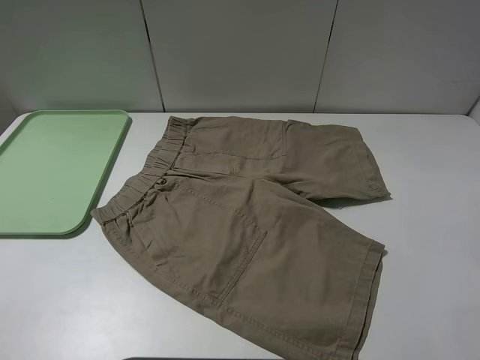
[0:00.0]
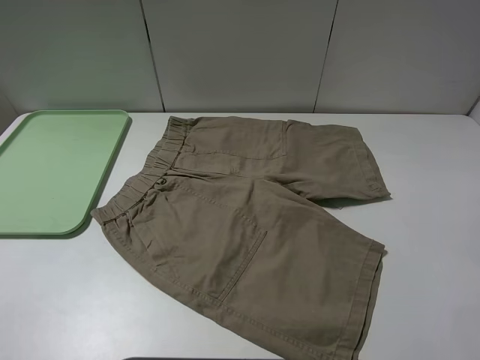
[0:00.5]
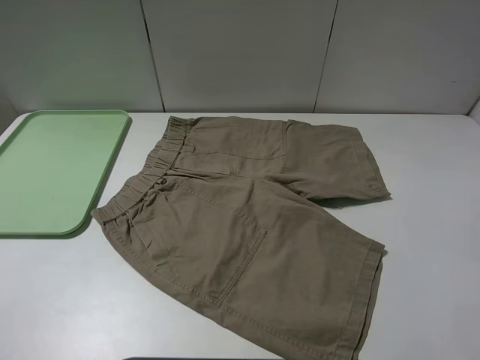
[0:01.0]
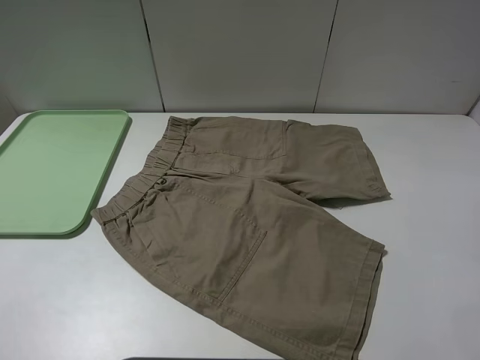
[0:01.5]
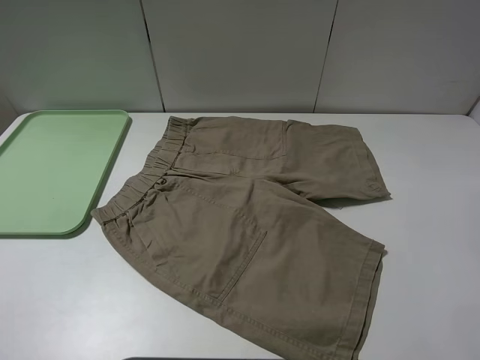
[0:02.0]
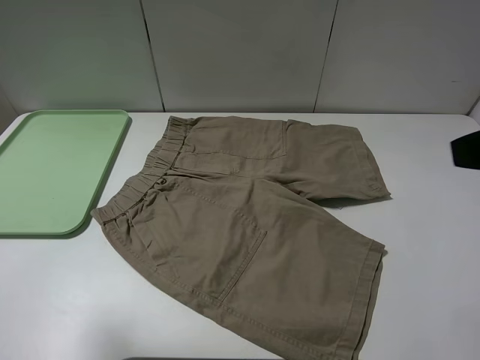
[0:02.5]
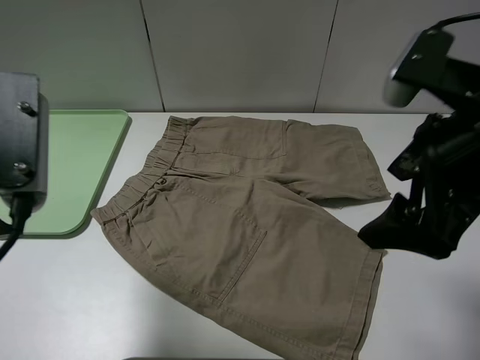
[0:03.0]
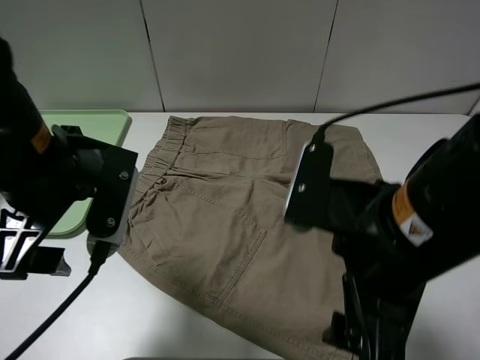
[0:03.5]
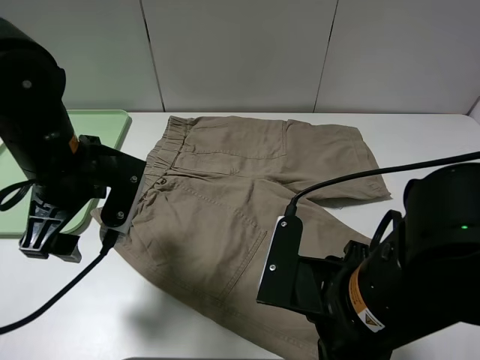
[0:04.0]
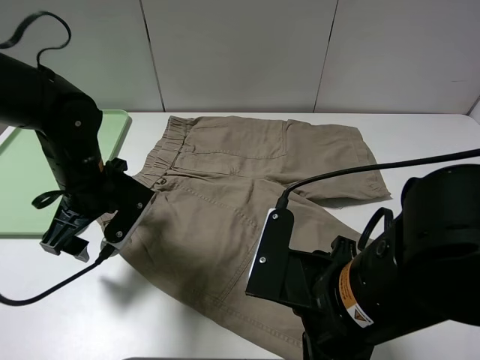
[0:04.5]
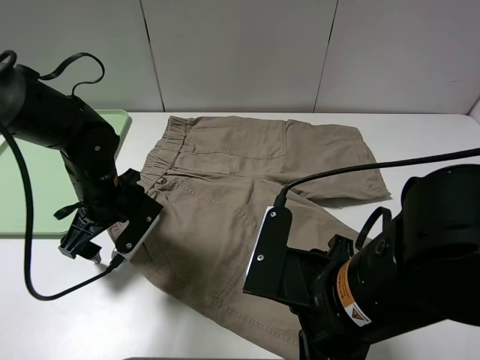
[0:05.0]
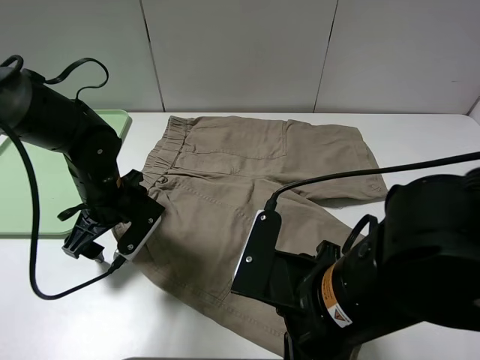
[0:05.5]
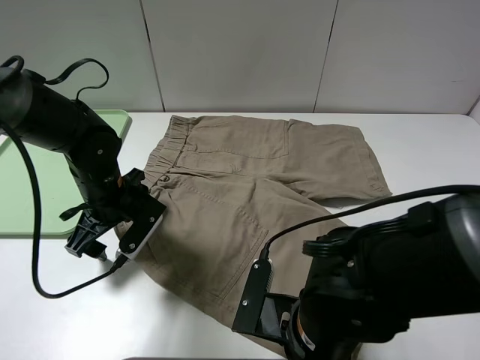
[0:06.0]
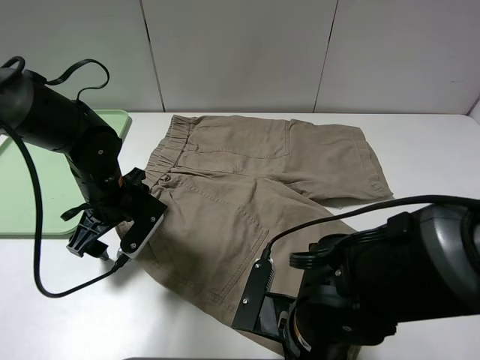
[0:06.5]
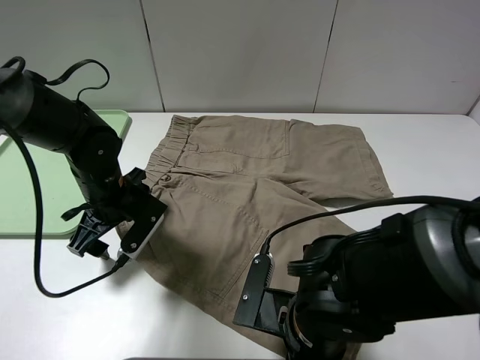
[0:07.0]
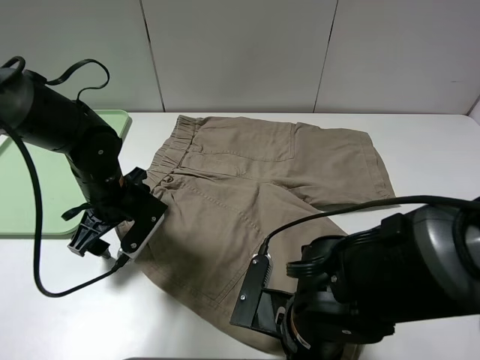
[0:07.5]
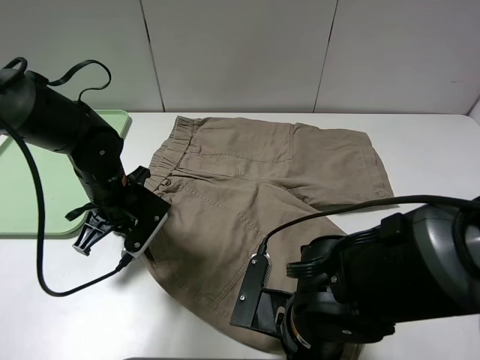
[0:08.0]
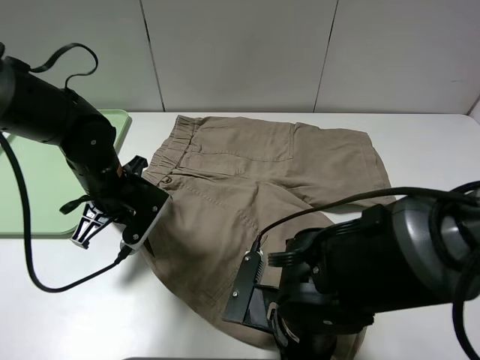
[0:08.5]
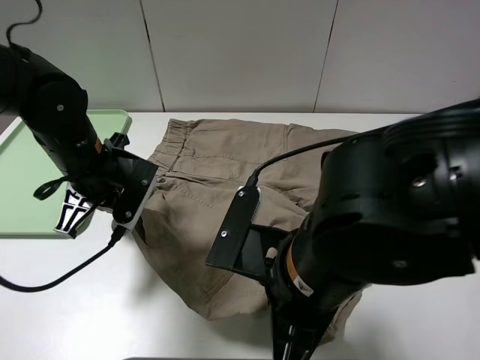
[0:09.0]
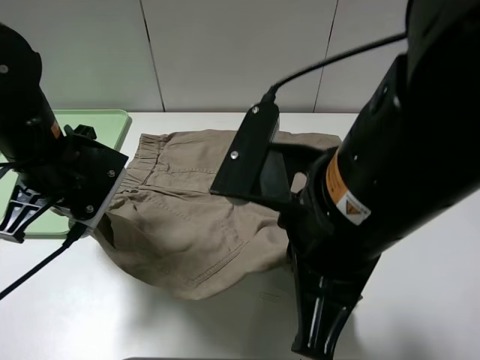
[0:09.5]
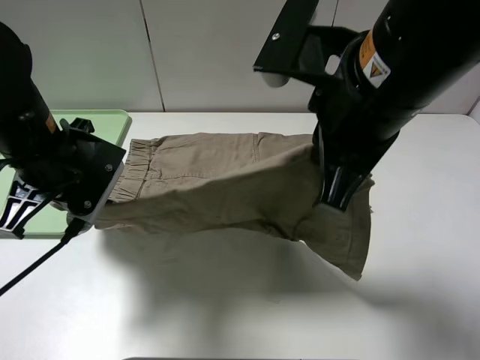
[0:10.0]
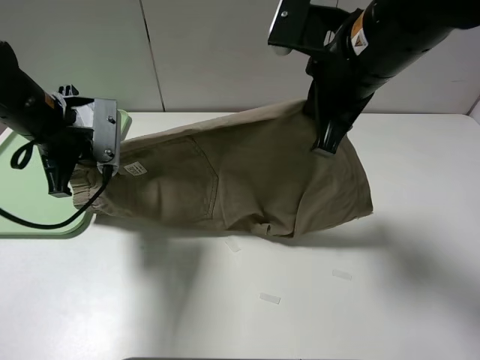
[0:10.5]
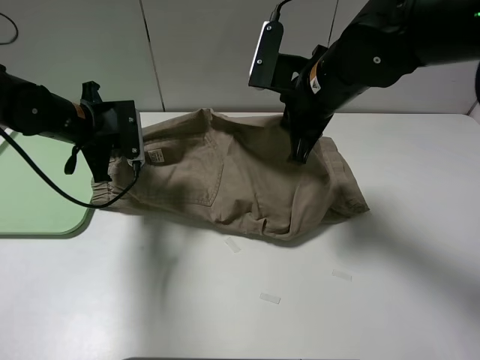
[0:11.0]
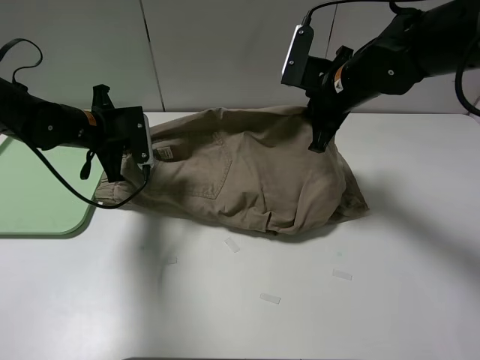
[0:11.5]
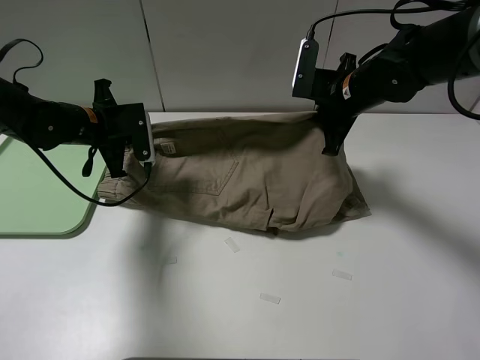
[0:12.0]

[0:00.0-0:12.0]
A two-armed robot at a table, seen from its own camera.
Task of the whole recording: fold the khaki jeans in half with two grippers, then fold them in half again, and use the left claw to place the folded fold khaki jeans on the tray.
Step, 0:00.0 to 0:08.0: Grasp the khaki trousers with the right gripper.
0:02.0 to 0:04.0: The left gripper goes roughly 25 cm forward, to the right and downward. The right gripper heads to the left, downward and forward, covering some 25 cm.
0:04.0 to 0:06.0: Both grippers travel together downward, approximately 10 cm.
0:06.0 to 0:08.0: The right gripper closes its fingers; the left gripper closes its fingers.
0:08.0 to 0:10.0: The left gripper shifts approximately 10 cm upward; the right gripper moves upward and forward, roughly 25 cm.
0:10.0 to 0:12.0: The left gripper moves forward and downward, approximately 15 cm, while the right gripper goes about 20 cm forward and downward.

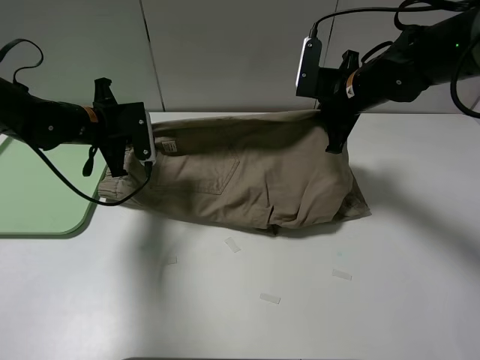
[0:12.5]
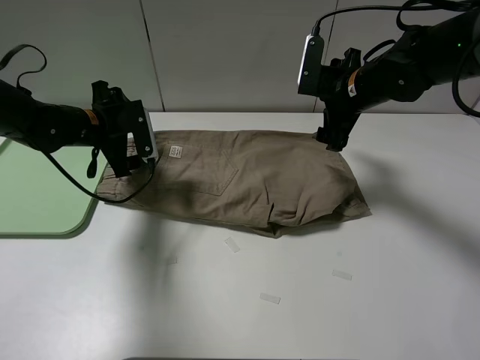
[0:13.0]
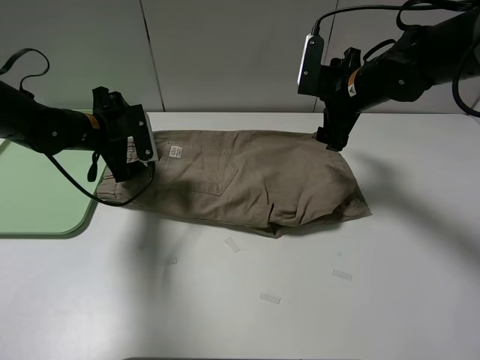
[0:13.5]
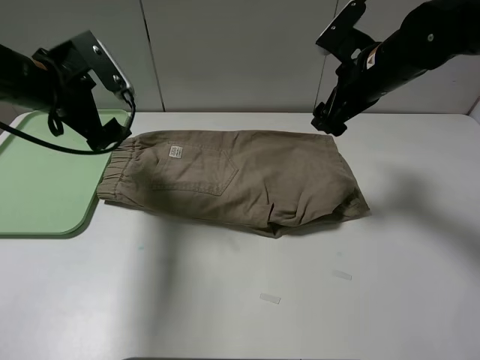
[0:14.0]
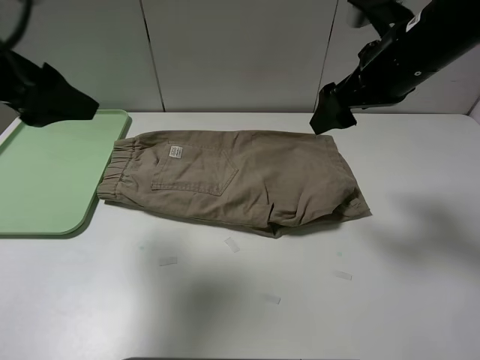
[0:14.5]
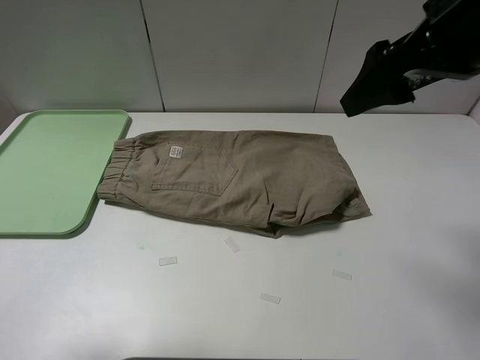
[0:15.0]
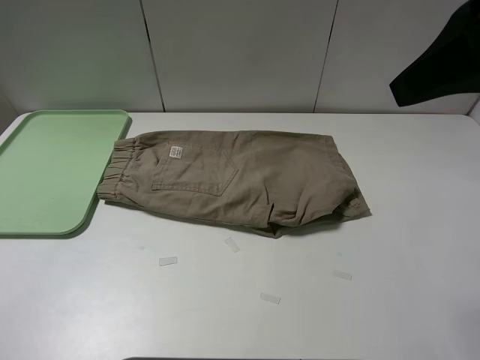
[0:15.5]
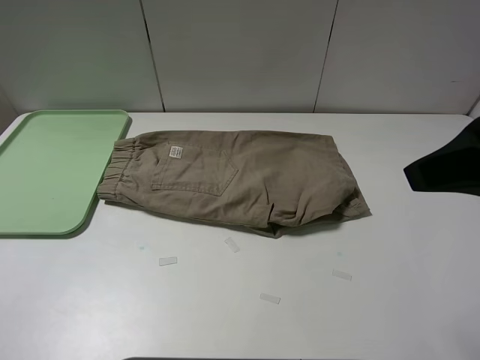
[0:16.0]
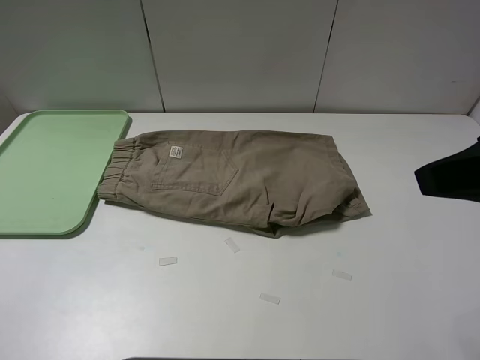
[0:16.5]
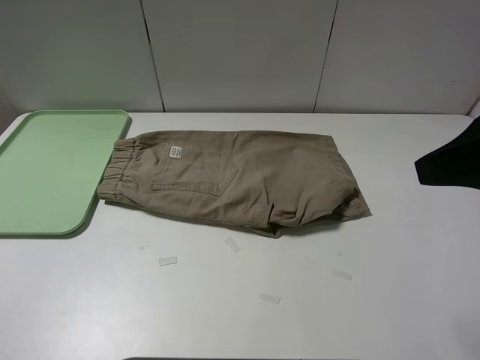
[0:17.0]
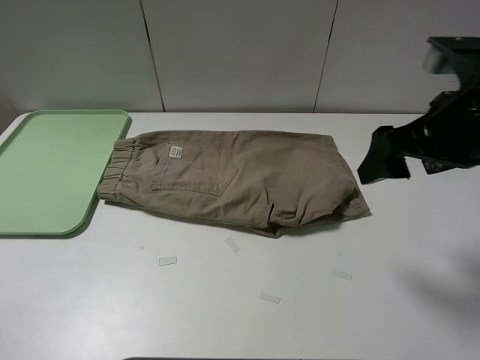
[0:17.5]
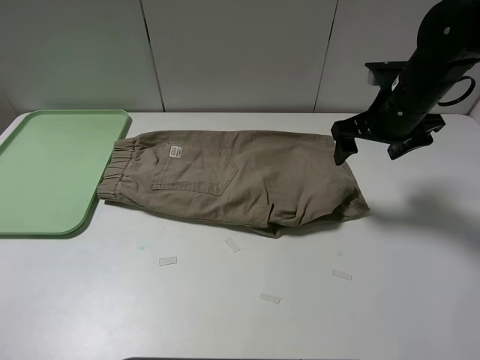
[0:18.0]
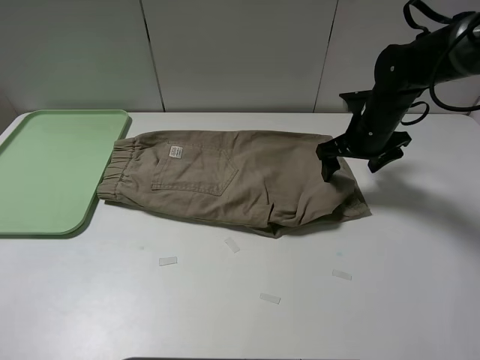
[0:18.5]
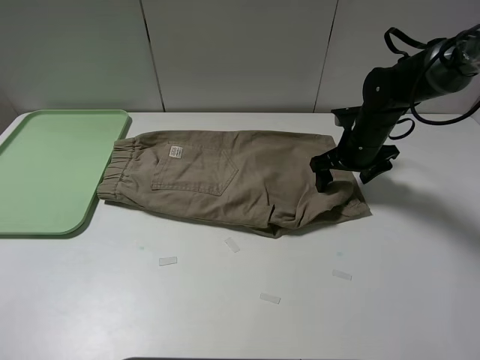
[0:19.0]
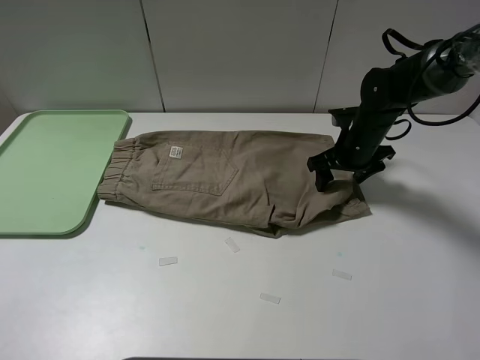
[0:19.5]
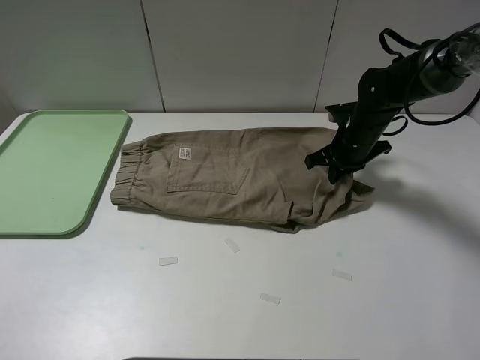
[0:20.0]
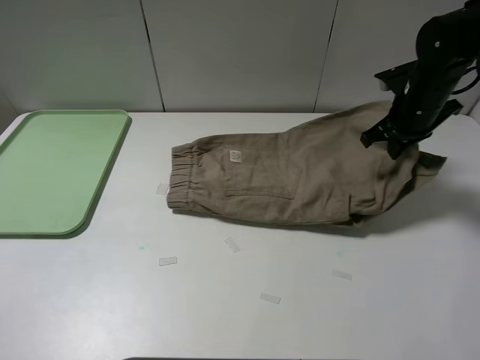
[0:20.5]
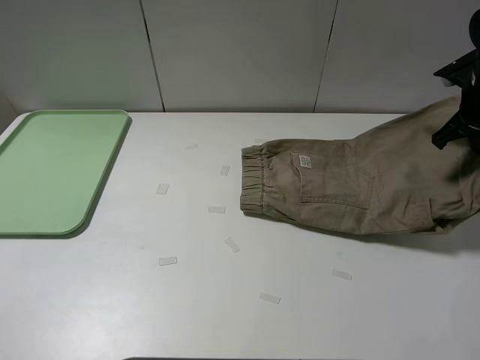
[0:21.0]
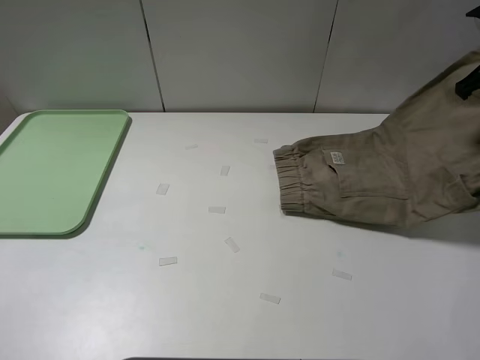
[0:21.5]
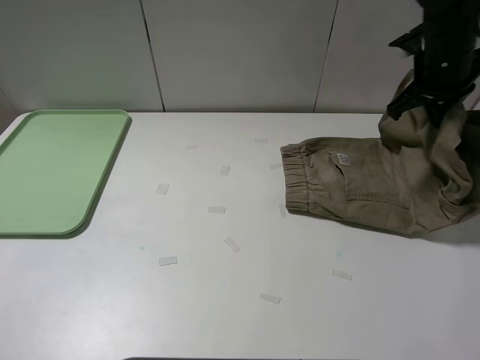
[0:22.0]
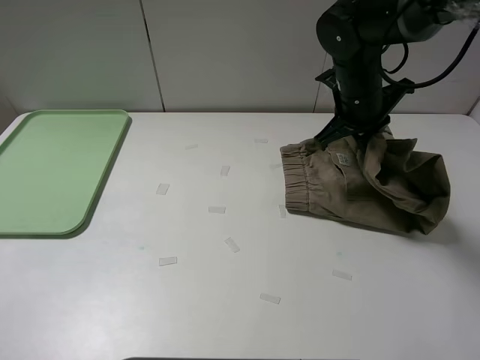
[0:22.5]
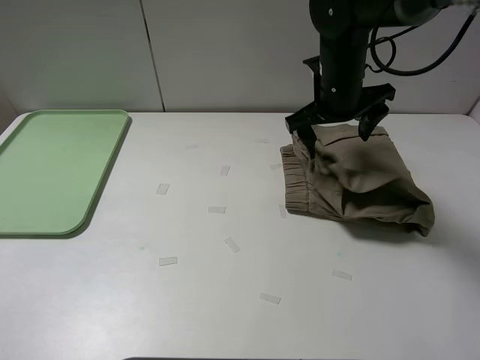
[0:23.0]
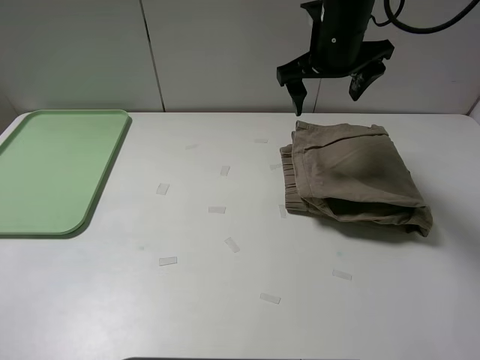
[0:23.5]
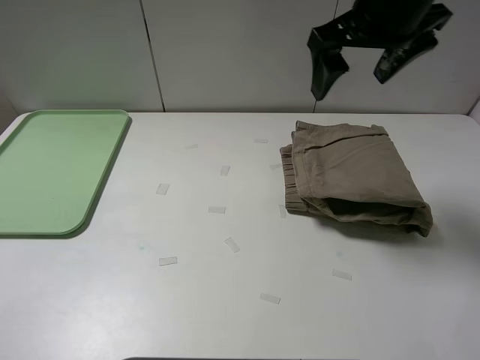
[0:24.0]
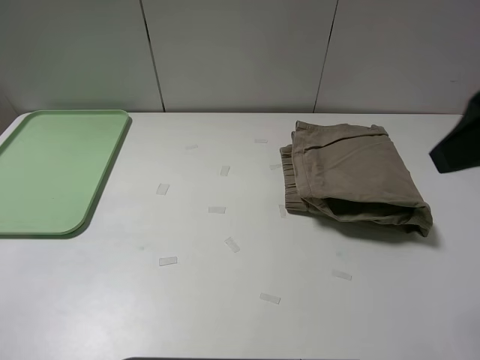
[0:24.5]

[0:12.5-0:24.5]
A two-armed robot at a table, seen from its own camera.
Task of the whole recording: fold the khaki jeans in half with two grippers, then fold them in half again, and use the left claw to place the folded fold khaki jeans on the tray.
Step, 0:13.5 to 0:19.5: Grasp the khaki trousers with the right gripper.
Step, 0:20.0 to 0:23.0: Fold the khaki trousers from right to left with the right gripper.
0:12.5 to 0:14.5: The left gripper goes some 25 cm upward and backward, and opens up; the right gripper travels upward and backward by about 15 cm, and opens its fingers.
0:14.5 to 0:16.5: Both grippers travel together backward, some 20 cm.
0:16.5 to 0:18.5: The right gripper travels forward and downward by approximately 35 cm.
0:18.5 to 0:20.5: The right gripper travels to the right and upward by approximately 10 cm, and closes up.
0:20.5 to 0:22.5: The right gripper is displaced to the left by some 10 cm.
0:22.5 to 0:24.5: The right gripper moves backward and upward, about 30 cm, and opens its fingers.

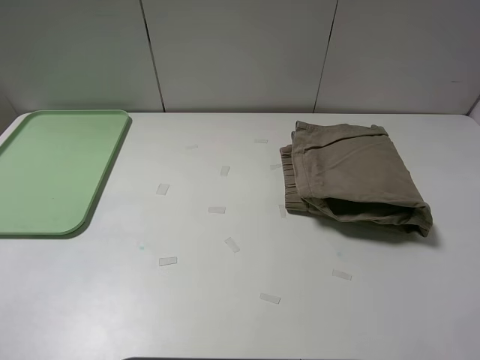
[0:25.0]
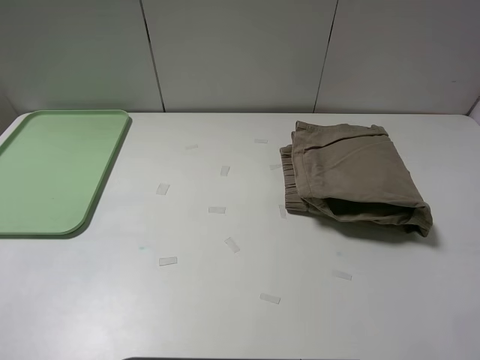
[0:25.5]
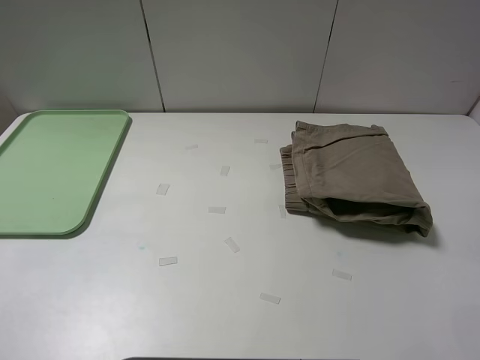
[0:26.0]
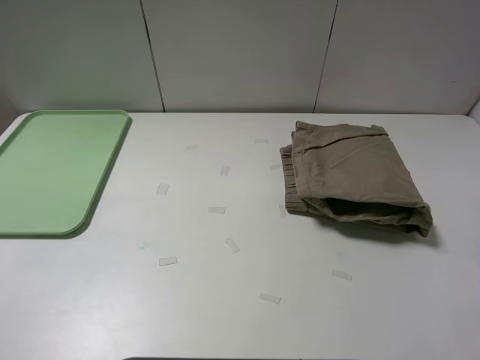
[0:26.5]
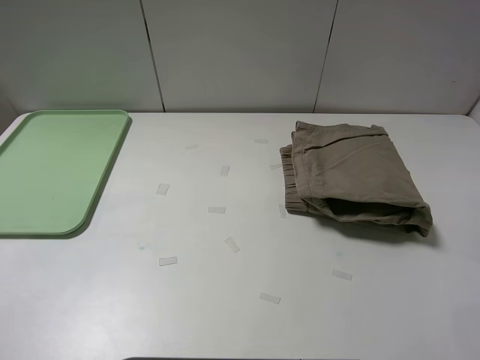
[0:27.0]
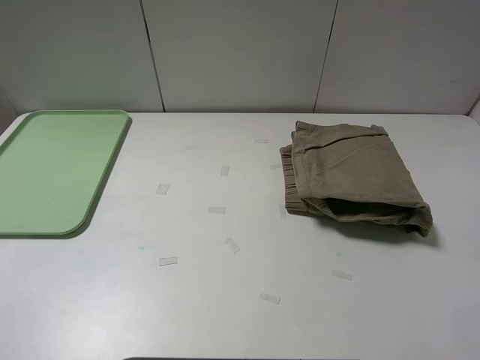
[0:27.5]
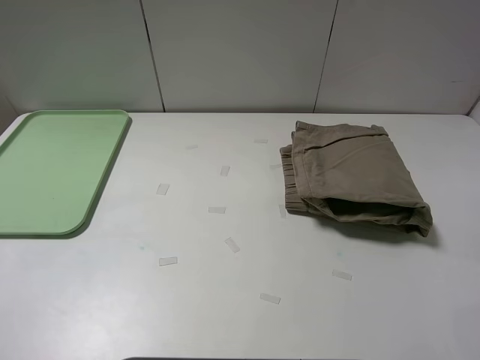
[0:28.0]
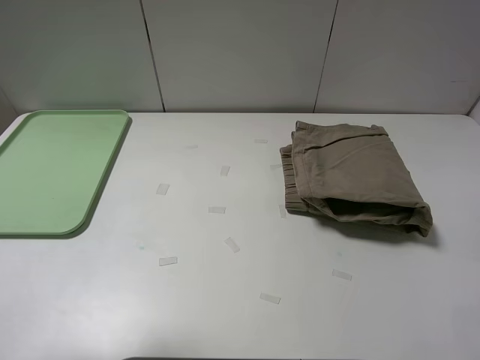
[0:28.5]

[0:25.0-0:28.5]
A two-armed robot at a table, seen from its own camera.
Task of the whole recording: fold the khaki jeans in half with two grippers, then fold them in half again, and use the left claw to place the folded fold khaki jeans on the tray.
0:27.0 to 0:28.5: The left gripper moves forward, approximately 10 cm.
